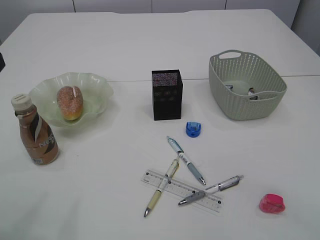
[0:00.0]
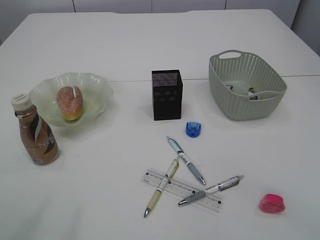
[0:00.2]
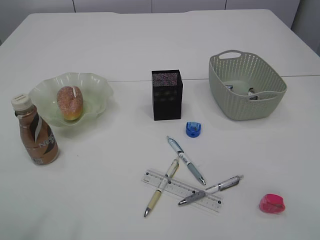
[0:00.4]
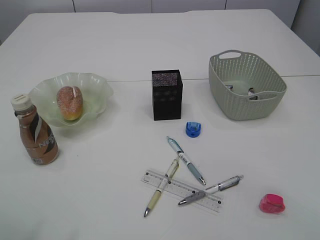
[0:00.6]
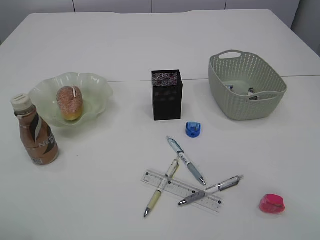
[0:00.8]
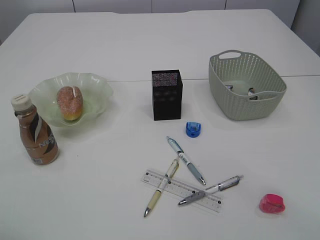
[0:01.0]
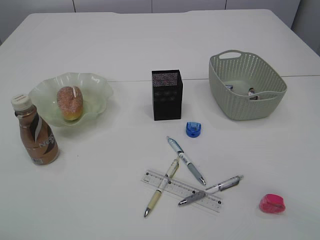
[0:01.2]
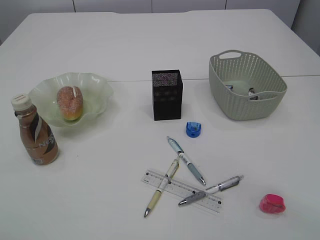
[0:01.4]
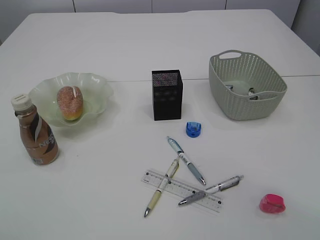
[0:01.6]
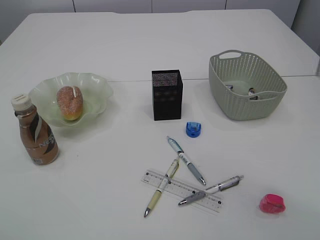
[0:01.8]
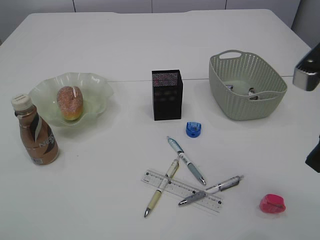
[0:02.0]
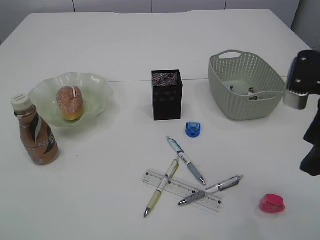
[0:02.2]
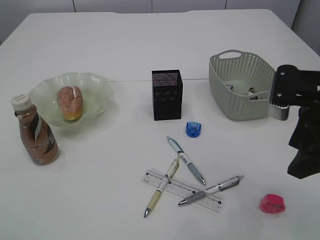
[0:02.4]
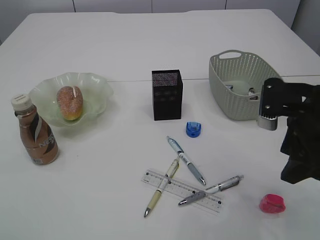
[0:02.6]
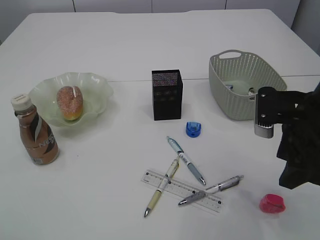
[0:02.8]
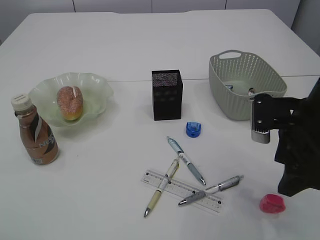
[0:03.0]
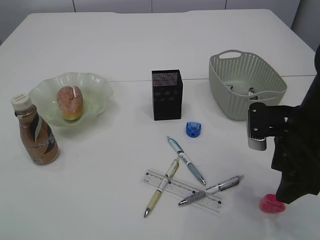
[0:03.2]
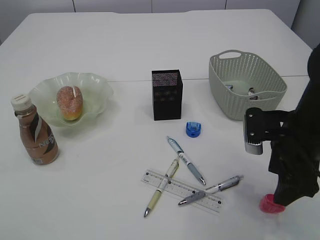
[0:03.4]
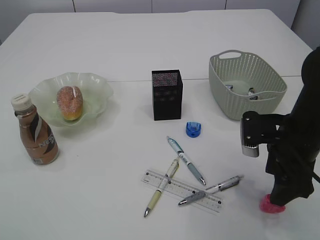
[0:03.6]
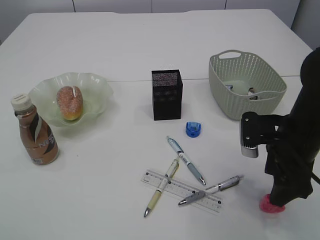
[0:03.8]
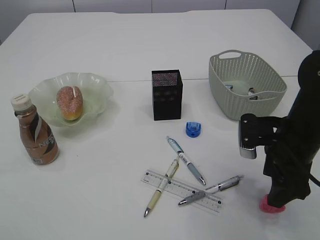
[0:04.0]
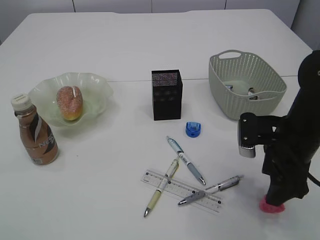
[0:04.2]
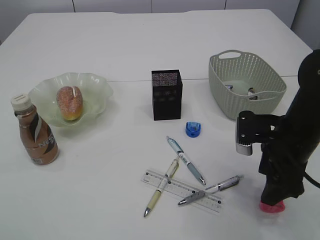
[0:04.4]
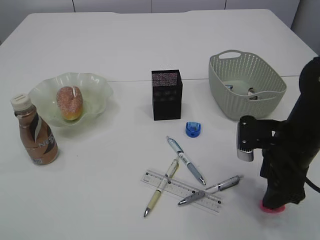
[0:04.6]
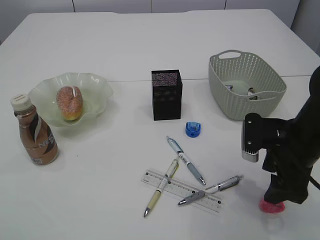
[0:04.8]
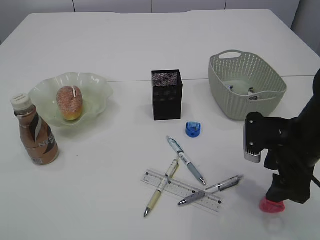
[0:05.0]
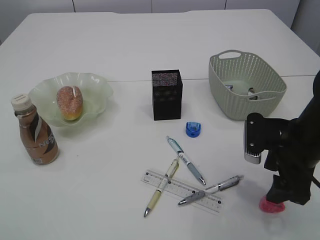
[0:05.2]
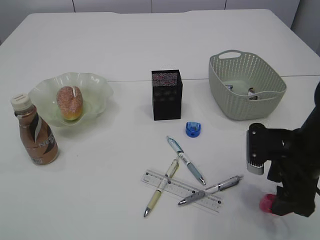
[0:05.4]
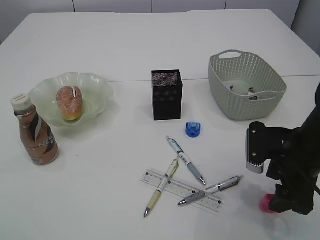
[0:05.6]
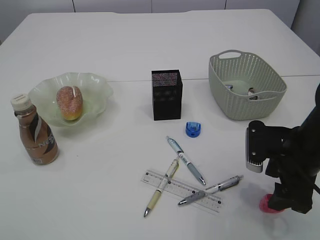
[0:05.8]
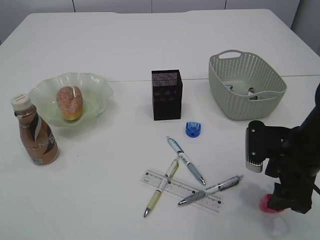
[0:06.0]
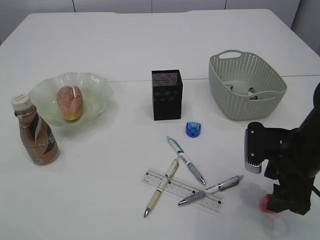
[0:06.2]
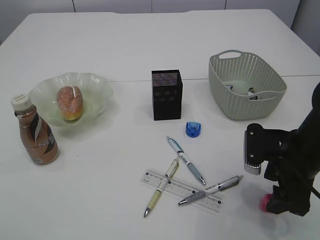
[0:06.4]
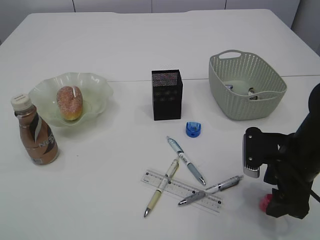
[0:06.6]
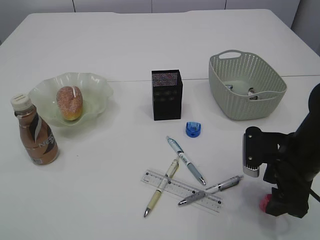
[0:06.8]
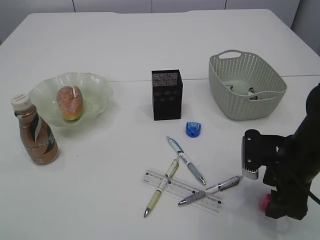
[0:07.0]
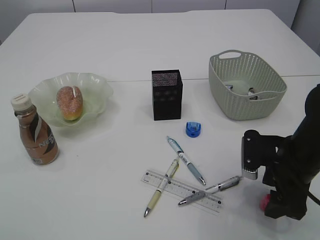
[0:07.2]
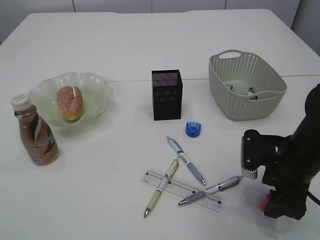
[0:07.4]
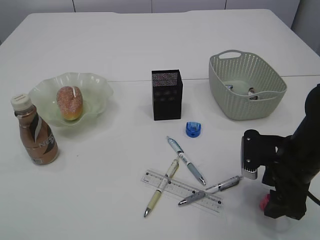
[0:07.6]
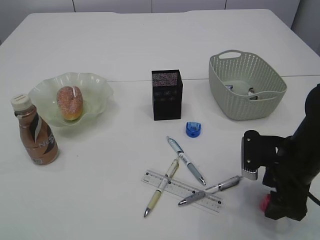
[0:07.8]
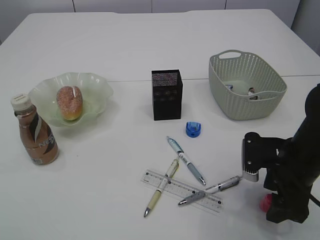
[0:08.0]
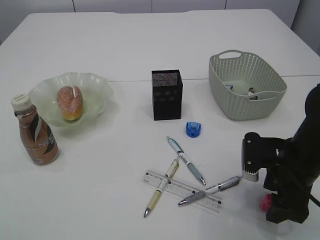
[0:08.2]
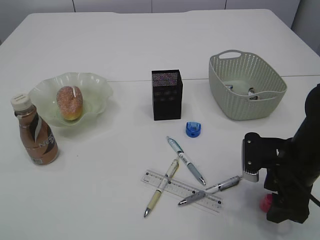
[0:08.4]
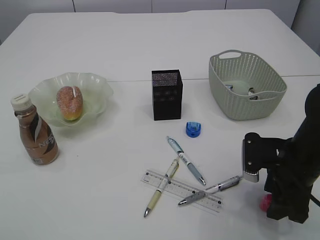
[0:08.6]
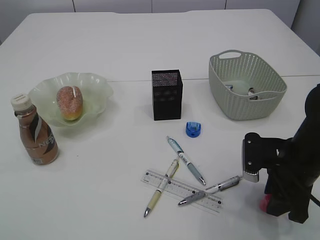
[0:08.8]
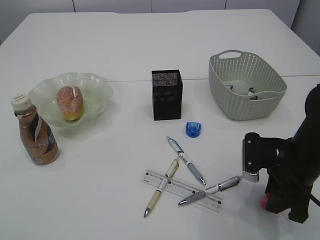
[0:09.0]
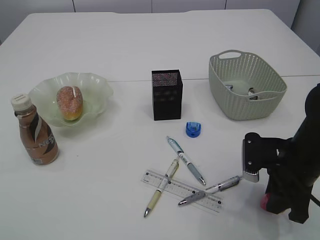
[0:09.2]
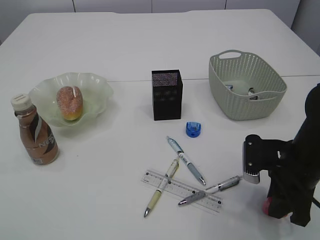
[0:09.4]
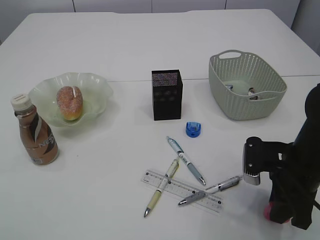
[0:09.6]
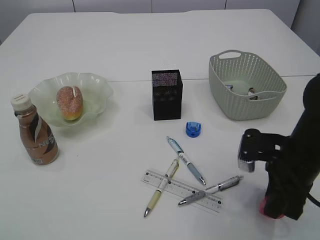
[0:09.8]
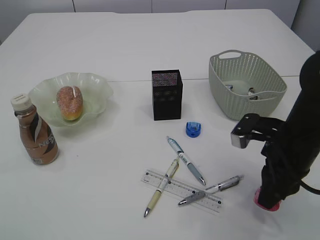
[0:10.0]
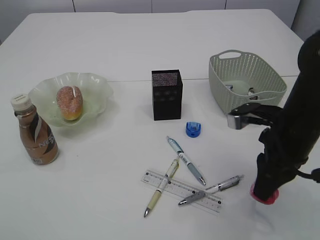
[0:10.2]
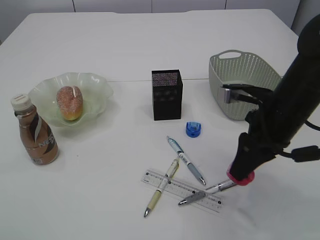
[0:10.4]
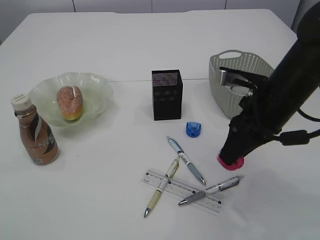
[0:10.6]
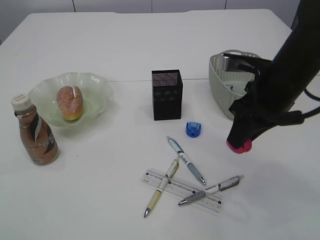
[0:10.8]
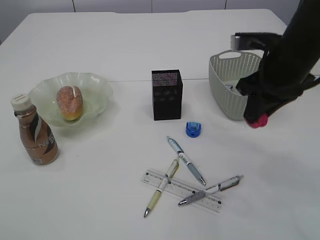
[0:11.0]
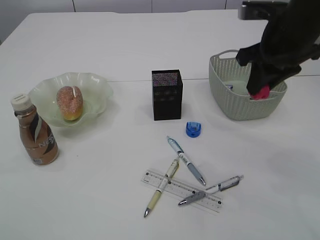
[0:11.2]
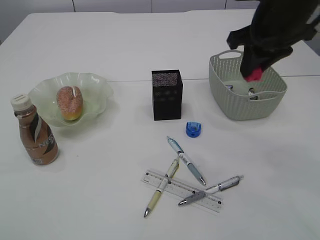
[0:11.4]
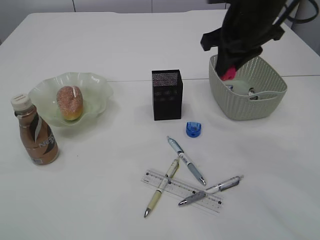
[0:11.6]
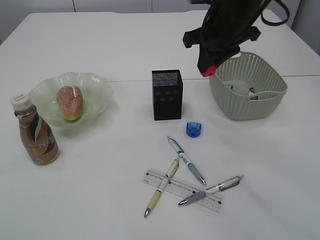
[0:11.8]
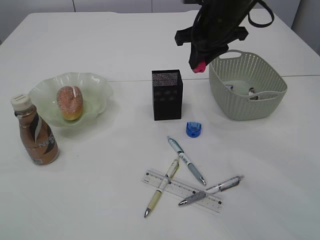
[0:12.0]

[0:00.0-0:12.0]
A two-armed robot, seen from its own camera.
Step, 0:00.0 to 0:10.0: Pick up the red pencil sharpener.
0:01.6 to 0:03.0: The right gripper travels downward and forward by roughly 15 cm.
0:03.0 to 0:04.4: The right gripper moves roughly 5 cm.
0:04.4 to 0:07.6: The grippers stay close to where they were, moving slightly.
0:07.6 to 0:09.0: The right gripper closes.
0:09.0 to 0:10.4: The right gripper is displaced upward by about 5 cm.
0:10.4 to 0:12.0: The right gripper goes some 15 cm forward and upward.

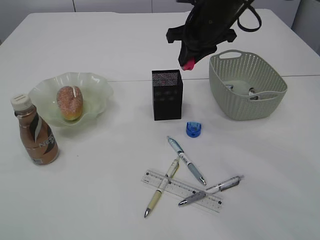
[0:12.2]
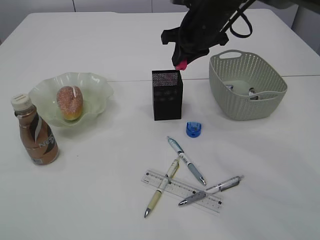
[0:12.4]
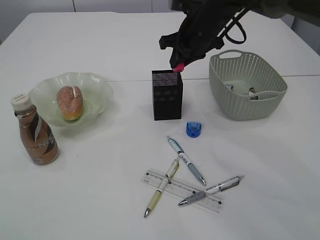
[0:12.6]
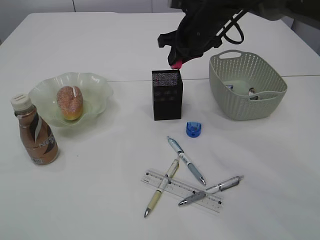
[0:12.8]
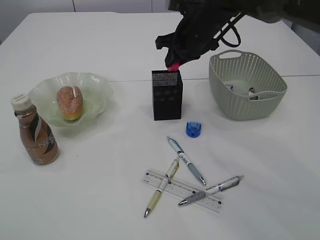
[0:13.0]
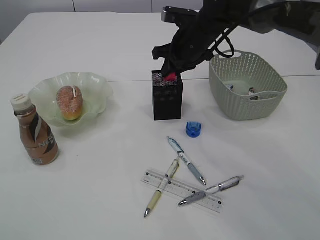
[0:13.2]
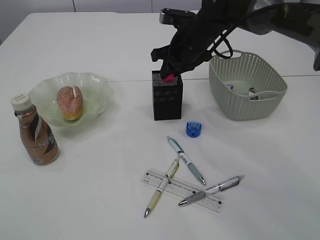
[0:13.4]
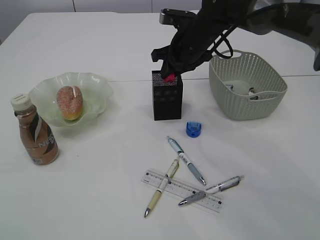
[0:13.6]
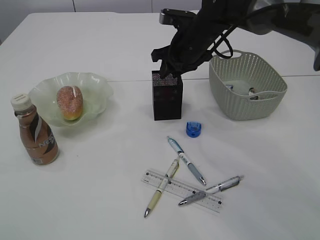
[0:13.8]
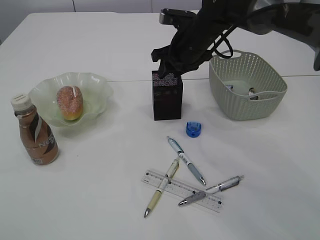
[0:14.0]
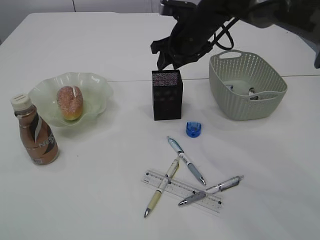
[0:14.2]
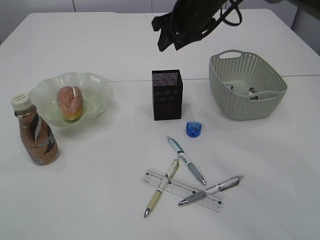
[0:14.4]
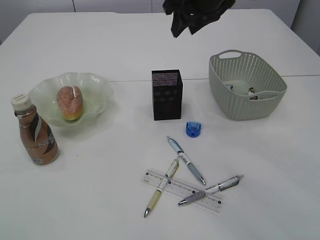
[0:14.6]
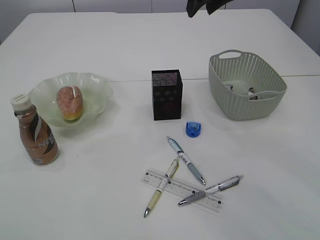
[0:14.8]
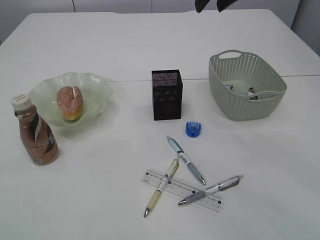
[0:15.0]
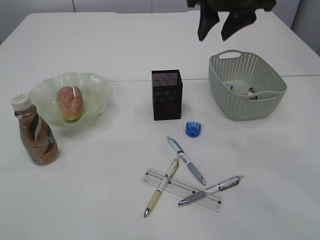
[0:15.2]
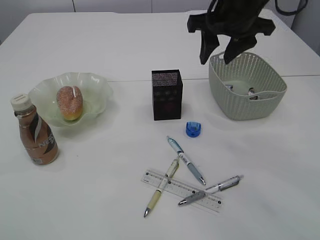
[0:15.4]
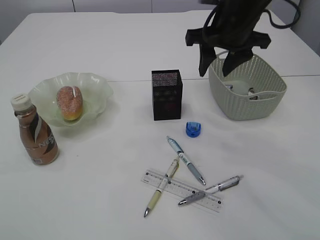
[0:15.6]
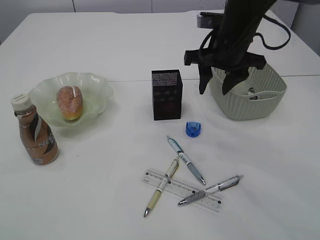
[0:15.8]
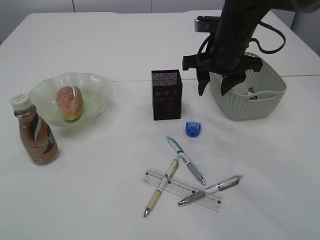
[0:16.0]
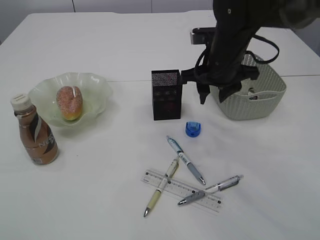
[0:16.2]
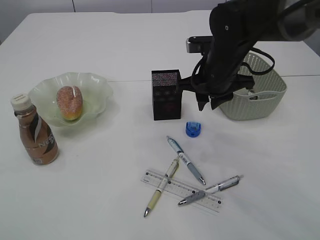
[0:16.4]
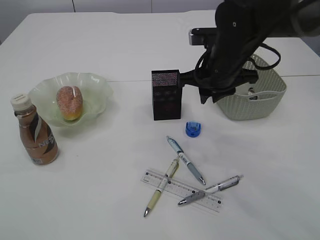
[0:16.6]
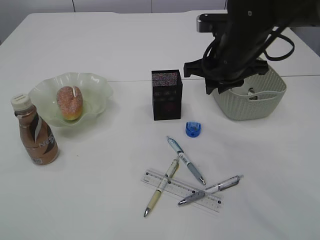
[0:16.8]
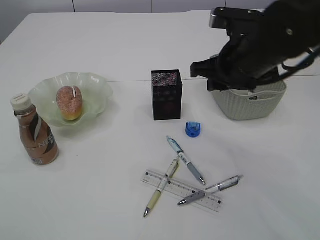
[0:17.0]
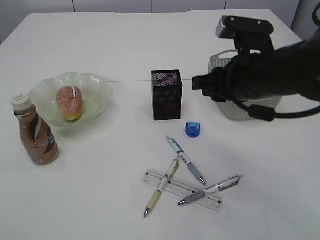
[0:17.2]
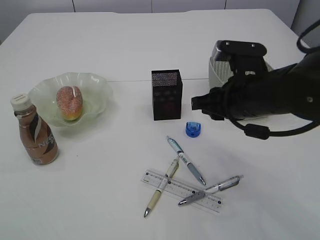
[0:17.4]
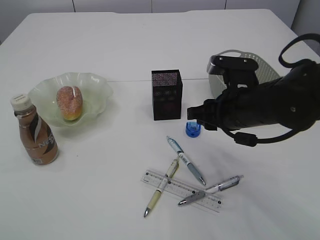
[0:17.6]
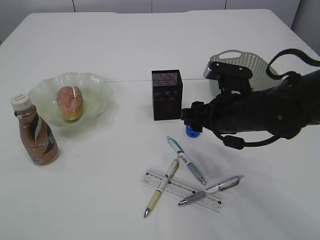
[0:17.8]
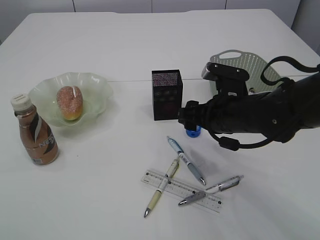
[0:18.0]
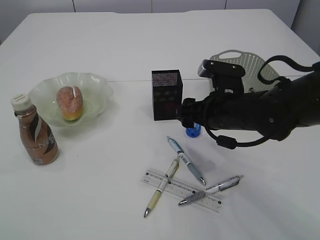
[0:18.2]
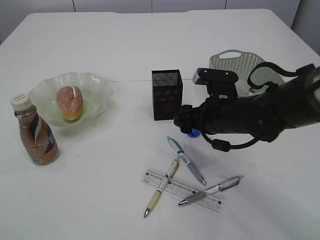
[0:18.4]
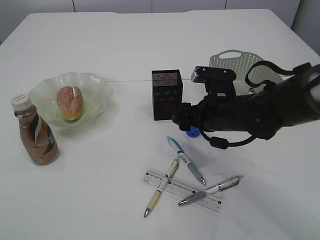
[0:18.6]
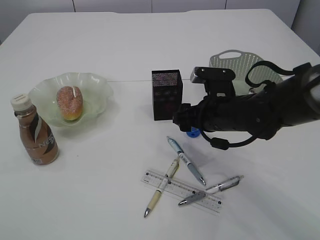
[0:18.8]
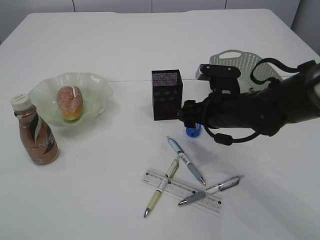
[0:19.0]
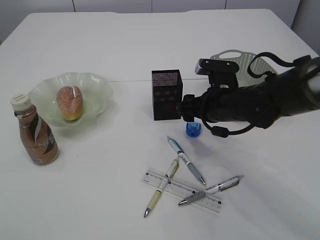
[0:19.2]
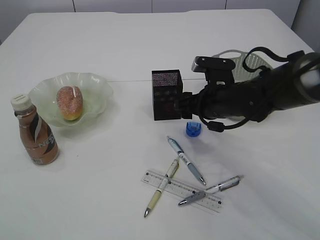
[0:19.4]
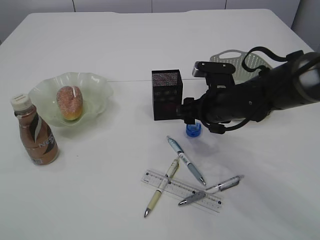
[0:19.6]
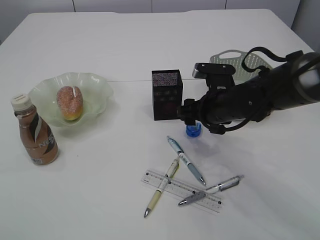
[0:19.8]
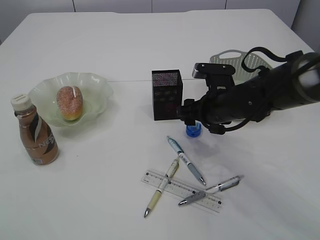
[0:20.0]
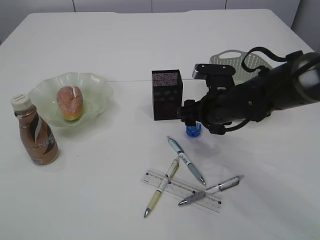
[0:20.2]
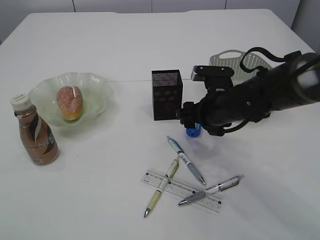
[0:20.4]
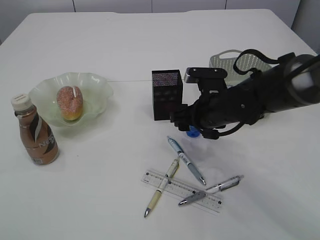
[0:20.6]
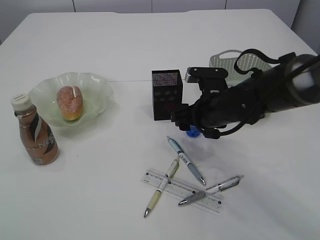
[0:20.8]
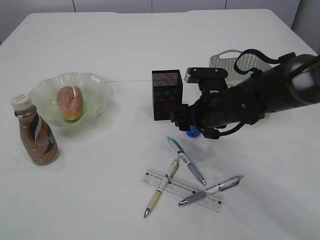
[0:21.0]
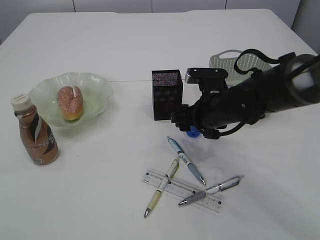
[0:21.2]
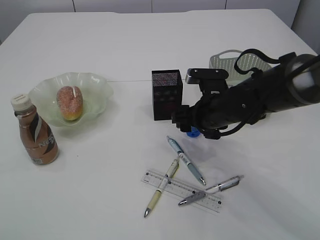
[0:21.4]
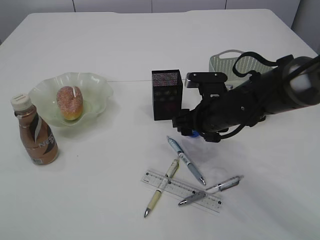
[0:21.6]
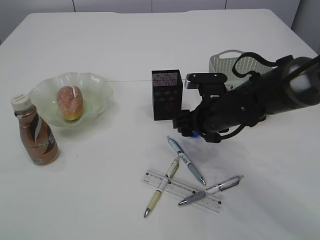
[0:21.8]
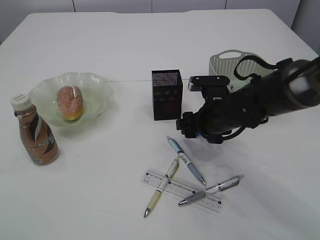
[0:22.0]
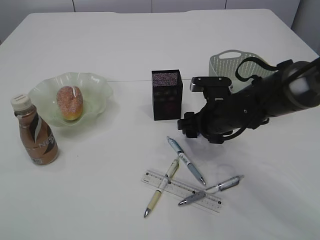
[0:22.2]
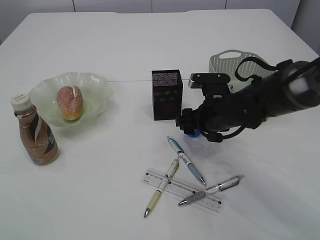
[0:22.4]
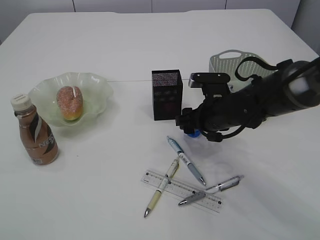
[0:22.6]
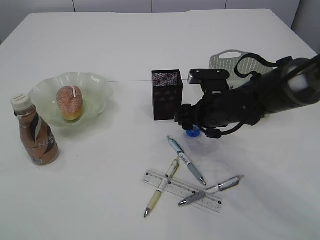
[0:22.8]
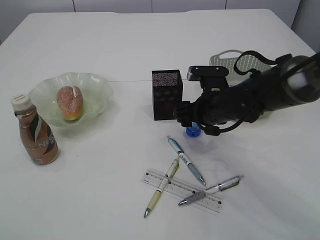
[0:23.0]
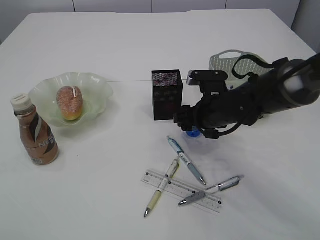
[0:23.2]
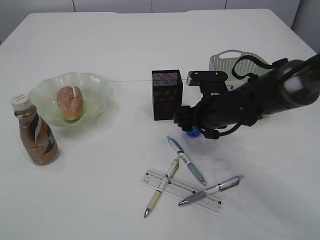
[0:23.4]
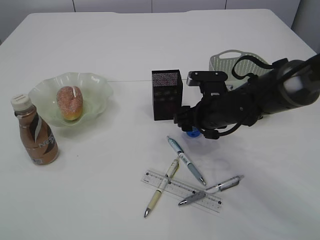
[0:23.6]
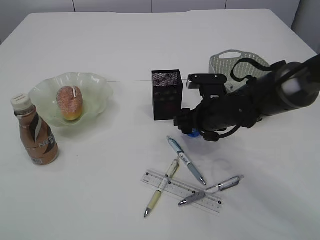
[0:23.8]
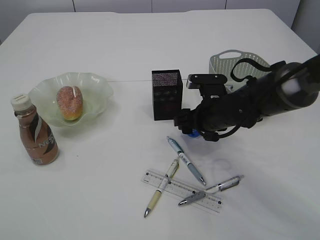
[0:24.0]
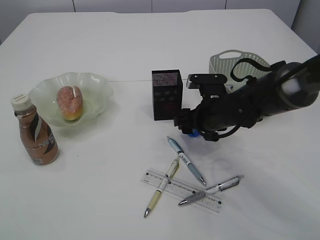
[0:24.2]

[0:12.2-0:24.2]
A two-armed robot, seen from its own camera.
Step, 0:12.2 to 0:14.4: Place the red pencil sharpener into the pen holder.
0:12.2 to 0:13.8: The right gripper shifts approximately 5 cm downward.
0:13.8 to 0:15.2: The right gripper moves upward and backward, some 15 cm.
0:15.2 to 0:16.6: The right gripper travels downward by approximately 15 cm, and closes its fingers.
0:16.6 to 0:18.2: The right gripper moves downward and backward, some 10 cm, and opens.
0:18.2 to 0:22.6: The grippers make only small movements.
0:22.6 to 0:24.2: Both grippers stay put.
